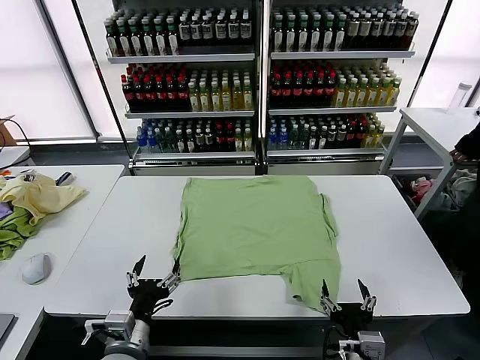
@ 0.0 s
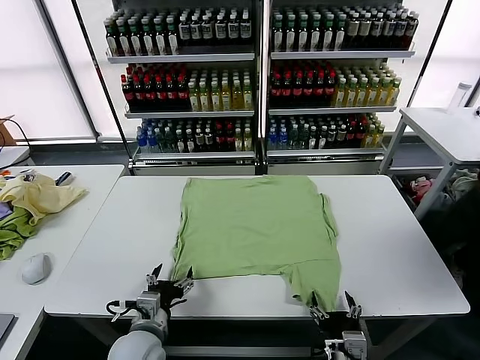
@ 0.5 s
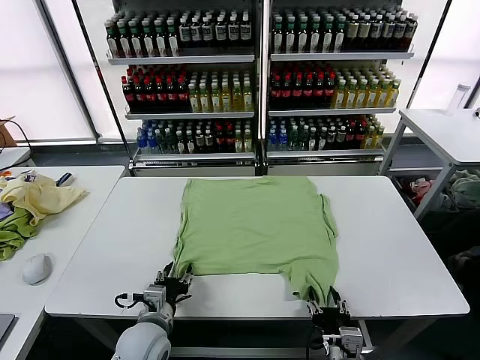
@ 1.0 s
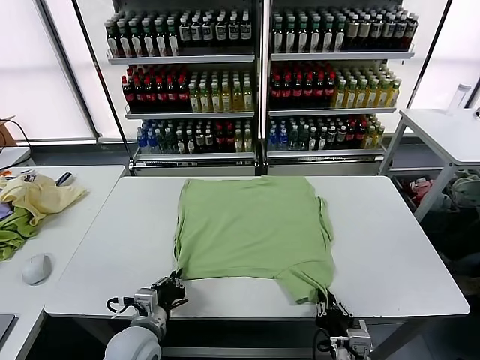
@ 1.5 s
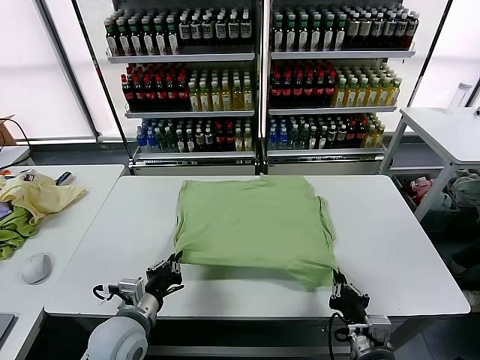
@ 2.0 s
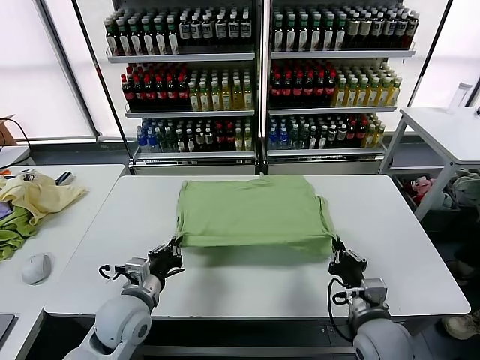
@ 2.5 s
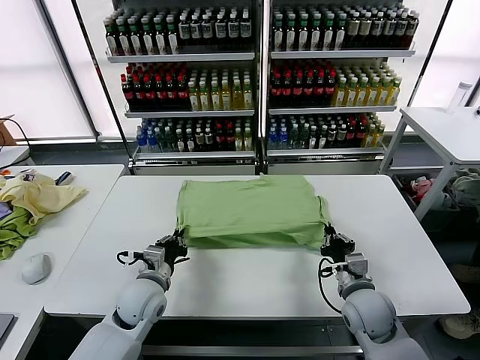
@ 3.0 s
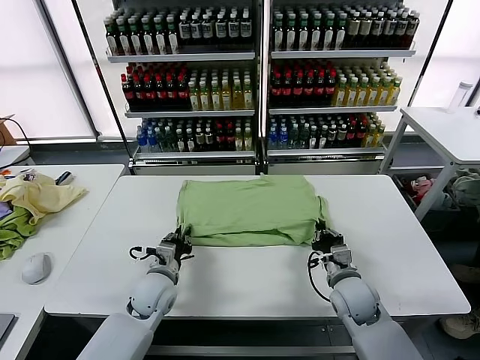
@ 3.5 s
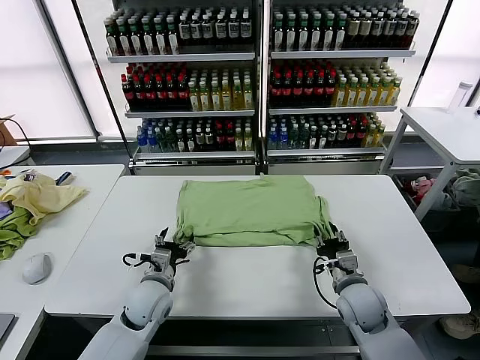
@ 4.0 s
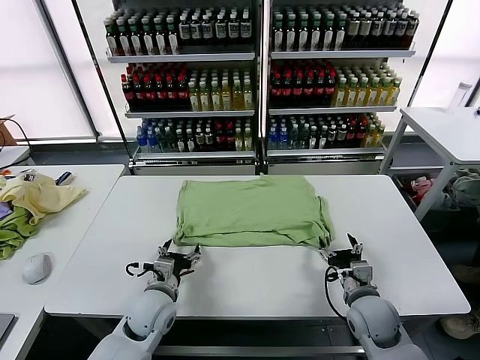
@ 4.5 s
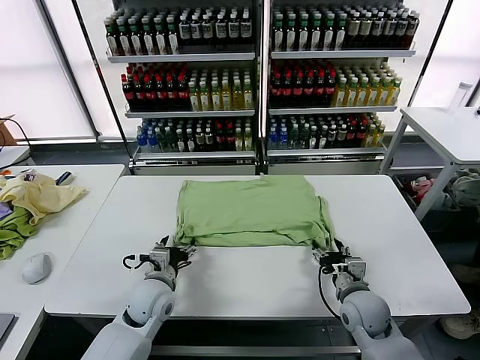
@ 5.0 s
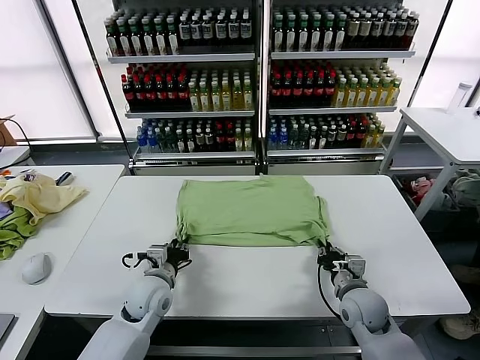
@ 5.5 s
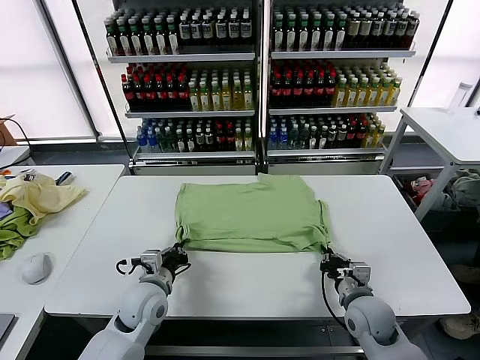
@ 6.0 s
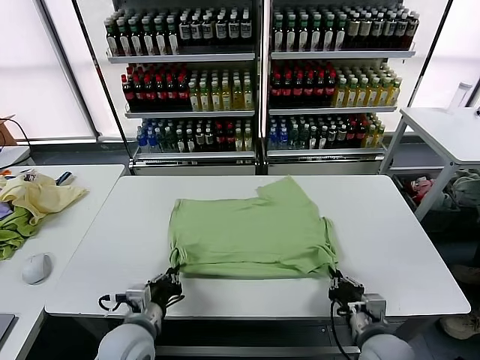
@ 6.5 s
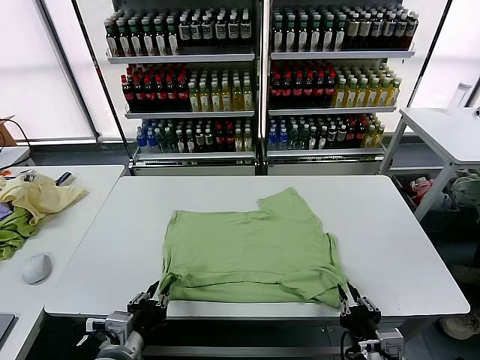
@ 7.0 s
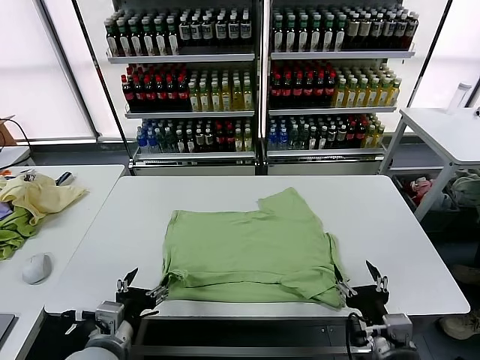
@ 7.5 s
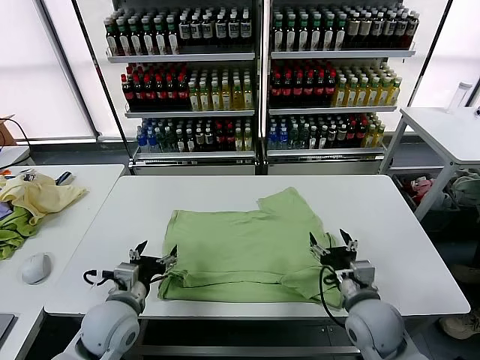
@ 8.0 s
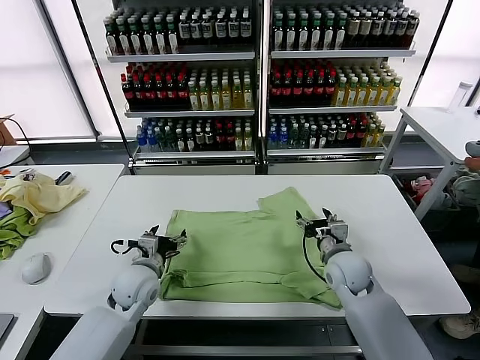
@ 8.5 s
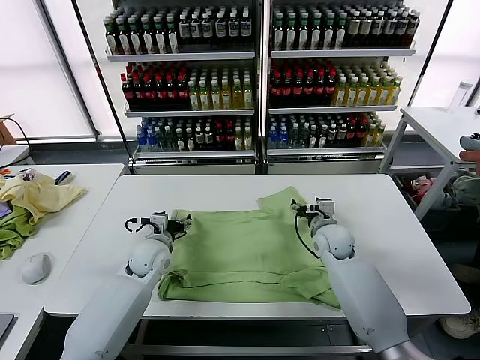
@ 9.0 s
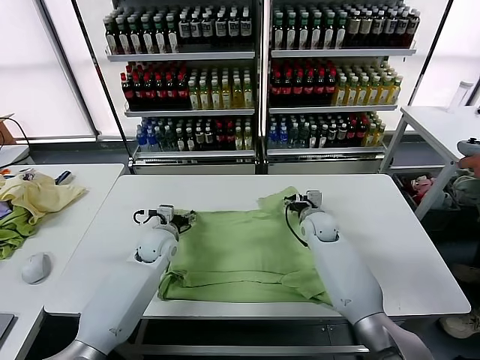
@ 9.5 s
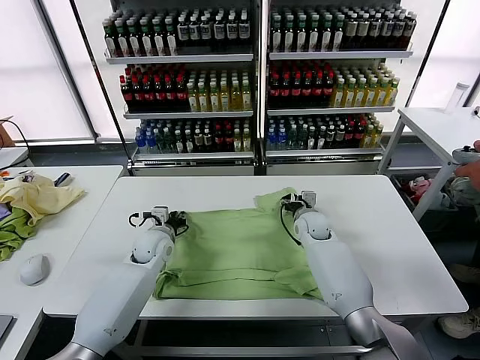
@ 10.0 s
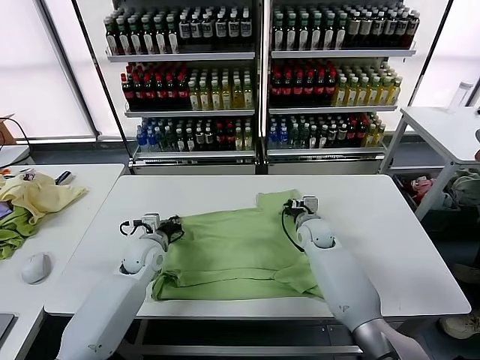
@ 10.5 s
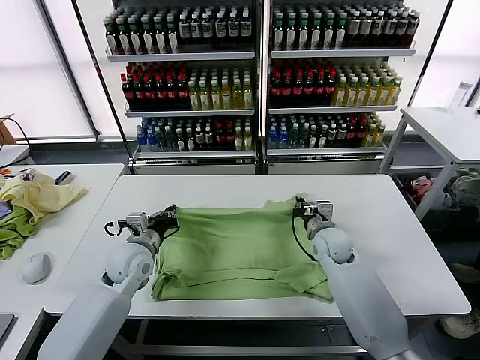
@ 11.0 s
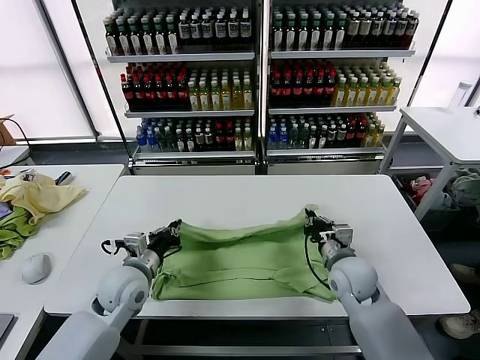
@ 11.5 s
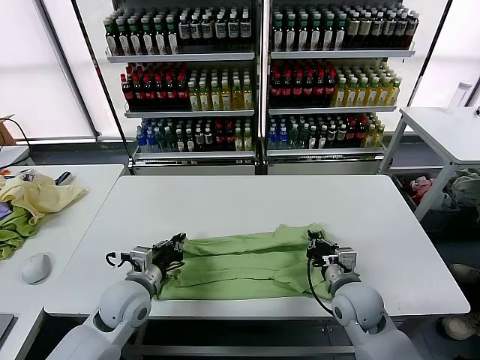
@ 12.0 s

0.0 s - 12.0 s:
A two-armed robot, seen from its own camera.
Task of the whole recording: fold and organize the clothes.
Step, 0.0 s - 1.5 s: use both grippers simultaneously to clamp the lower edge of the clothing fabric.
Step, 2.0 s - 3.5 s: use both grippers to drag the lower edge of the fabric forward and fold it over the upper edge.
Step, 4.0 s - 7.0 s: Drag the clothes downward with both gripper.
Step, 7.5 s - 10.0 s: use both grippers simultaneously to clamp the upper edge of the clothing fabric.
2.0 s - 4.0 s: The two grippers go approximately 10 cm forward. The right gripper opens, while the left gripper opens its fingers.
4.0 s - 6.0 s: The left gripper closes its fingers. Meanwhile the right gripper closes.
6.0 s - 8.0 s: The left gripper shifts about 5 cm backward, and opens its fingers; the right gripper travels upward by roughly 5 cm, travels backward and back again, roughly 15 cm each way, and opens its fingers.
8.0 s - 10.0 s: The two grippers go approximately 25 cm forward. The left gripper closes up.
10.0 s - 12.0 s: The grippers both shift backward by approximately 20 cm. The right gripper closes its fingers.

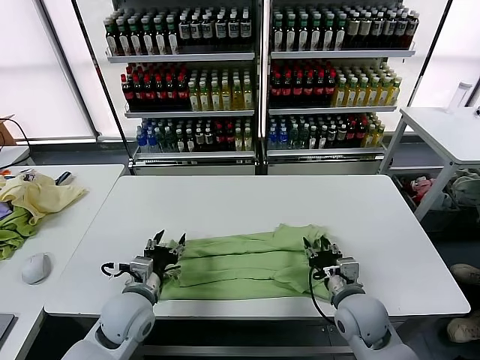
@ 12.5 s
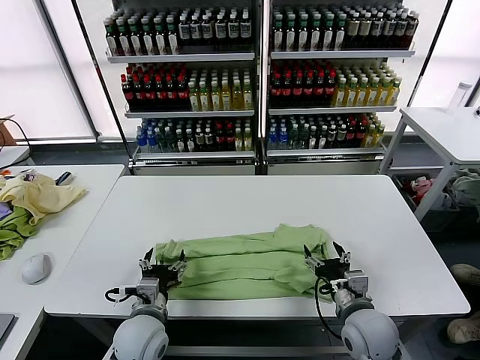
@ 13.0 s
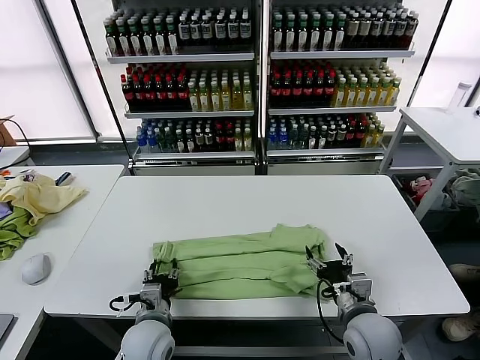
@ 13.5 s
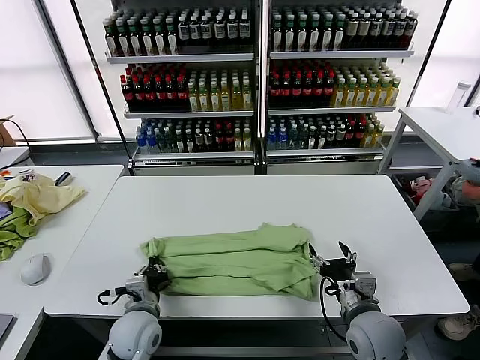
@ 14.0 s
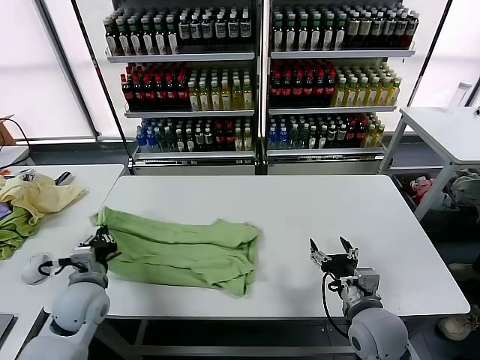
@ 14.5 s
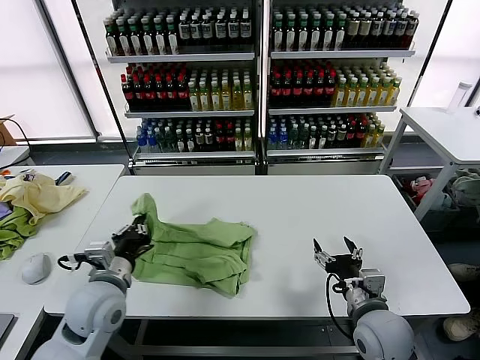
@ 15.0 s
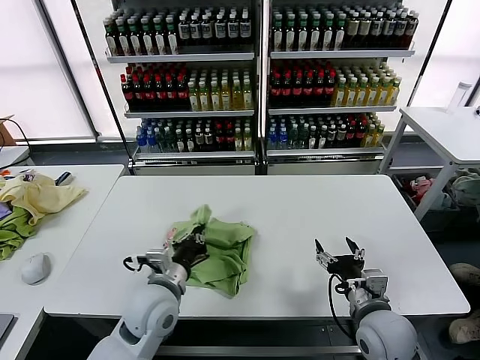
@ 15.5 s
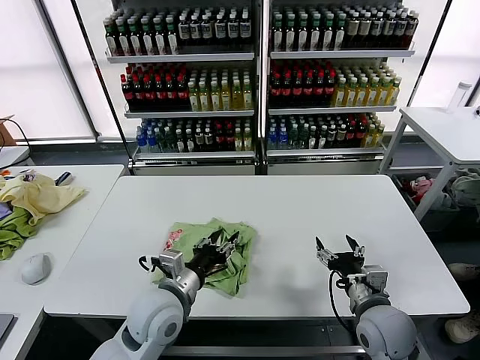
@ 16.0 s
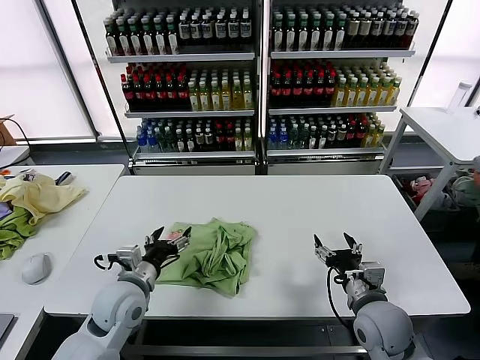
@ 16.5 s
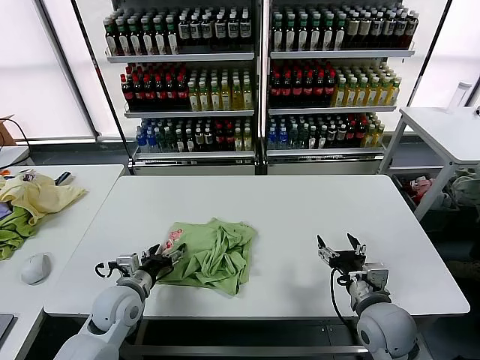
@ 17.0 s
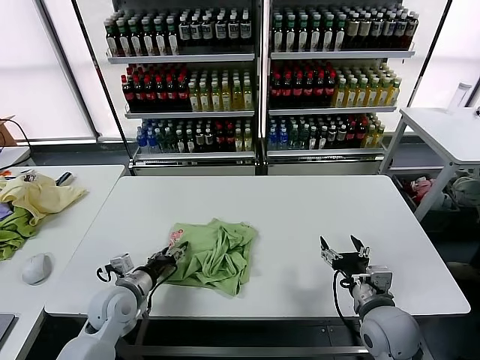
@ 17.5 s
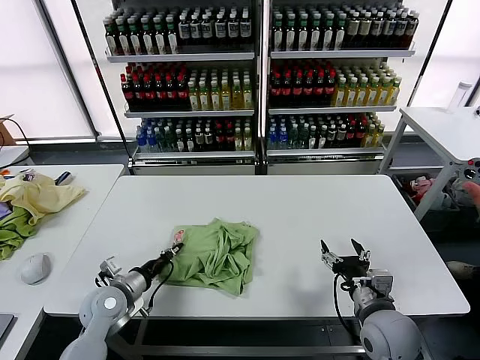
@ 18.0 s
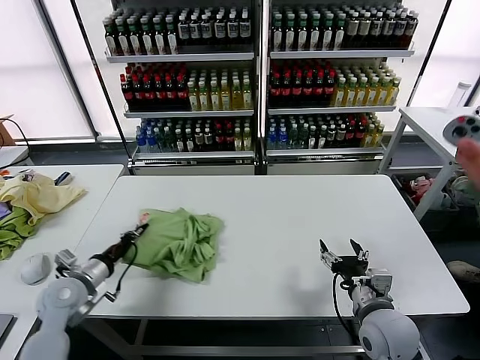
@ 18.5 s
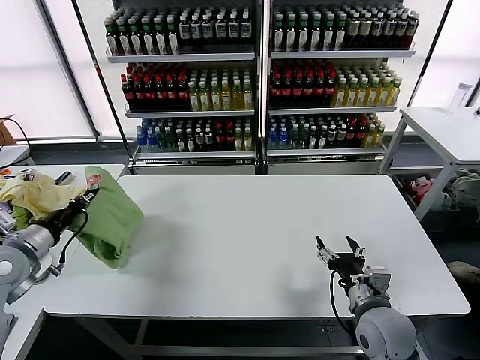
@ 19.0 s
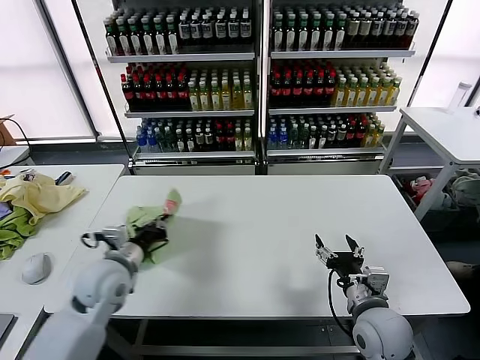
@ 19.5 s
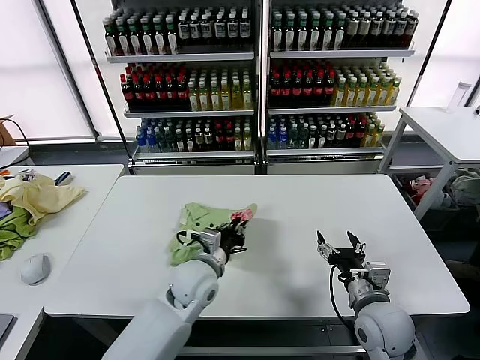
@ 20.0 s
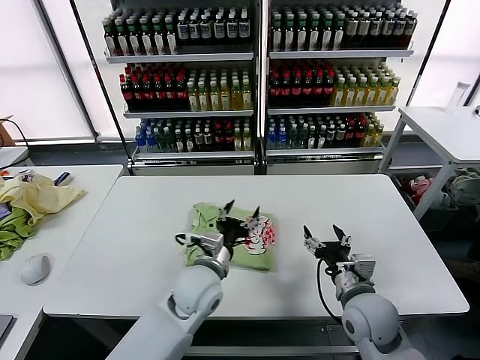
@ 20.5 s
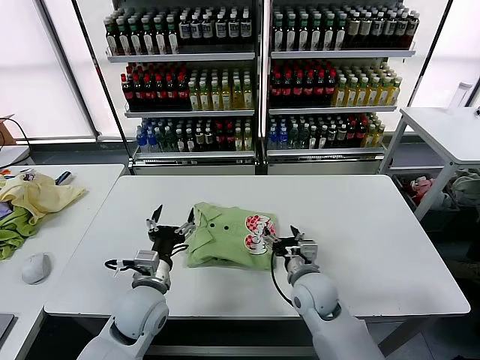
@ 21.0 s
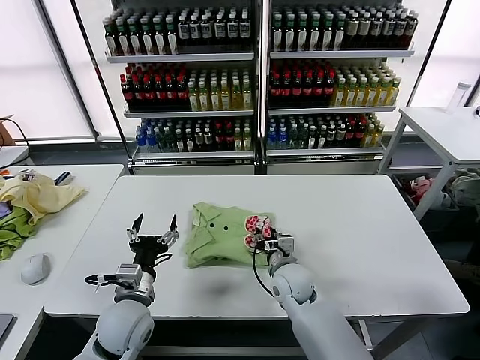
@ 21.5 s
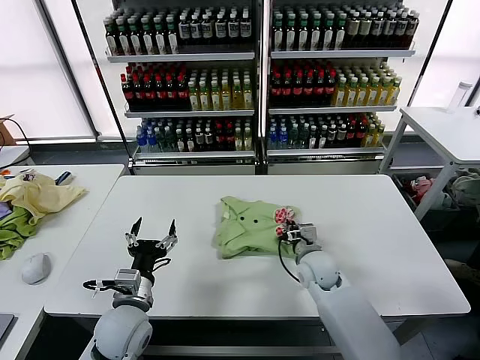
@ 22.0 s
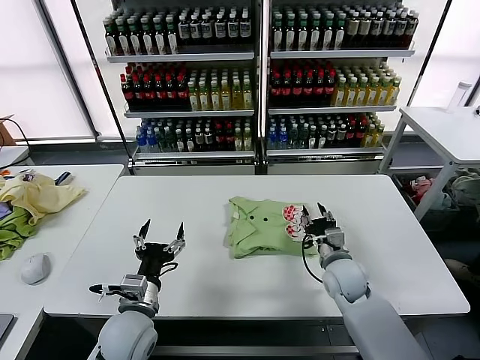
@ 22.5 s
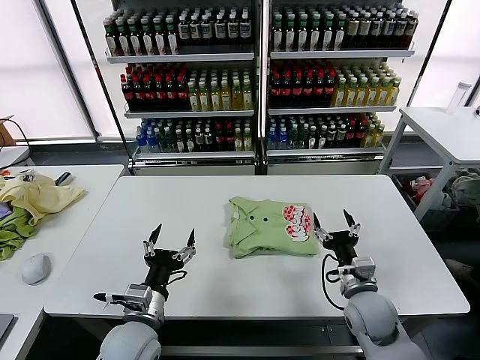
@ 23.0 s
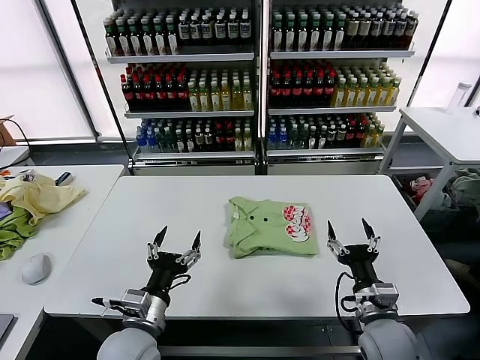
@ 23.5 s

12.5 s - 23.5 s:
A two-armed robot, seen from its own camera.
Task of the whole recording: fold and organize the clothes.
Step, 13.0 s - 13.5 s: use the left gripper to clamp the left edge of the fabric.
Step, 14.0 s - 15.5 s: use the left gripper to drag the left edge of the fabric to the left and folds it over the right edge.
Step, 16.0 s - 20.0 s: Flip the folded clothes over with left gripper.
Step, 20.5 s - 22.0 s: Drag the clothes to the center of the table.
12.5 s - 14.5 s: The left gripper travels to the left by roughly 10 cm, and closes up. Meanwhile the right gripper opens up.
14.5 s - 16.0 s: The left gripper travels to the right by some 15 cm, and opens.
16.0 s - 18.0 s: The left gripper heads to the left and downward, covering some 20 cm, and closes its fingers.
18.0 s - 20.0 s: The left gripper goes some 20 cm to the right.
20.0 s - 21.5 s: The right gripper goes roughly 20 cm to the left and forward, and closes its fingers. Meanwhile the left gripper heads to the left and backward, covering roughly 15 cm, and opens its fingers.
21.5 s - 23.5 s: The left gripper moves backward, approximately 5 cm; the right gripper is displaced to the right and backward by some 20 cm, and opens up.
